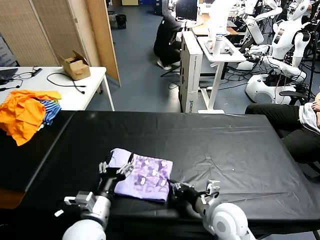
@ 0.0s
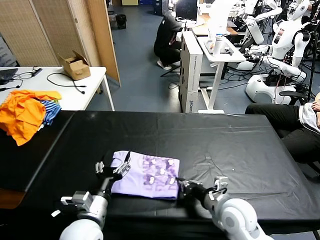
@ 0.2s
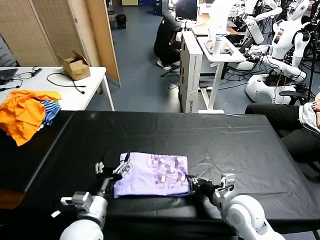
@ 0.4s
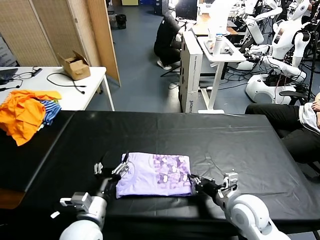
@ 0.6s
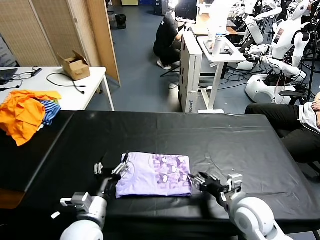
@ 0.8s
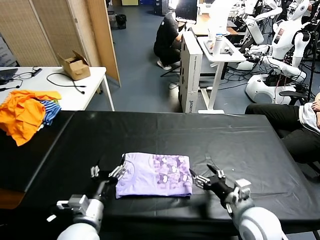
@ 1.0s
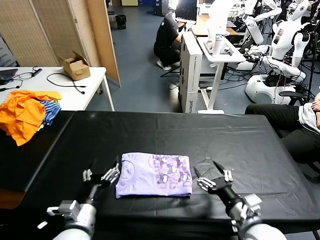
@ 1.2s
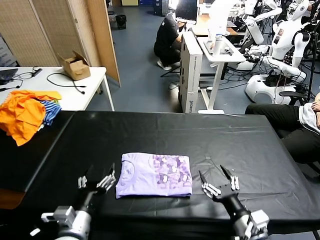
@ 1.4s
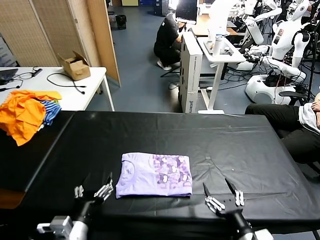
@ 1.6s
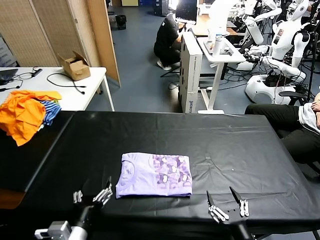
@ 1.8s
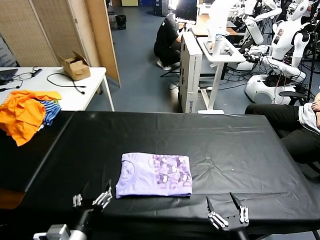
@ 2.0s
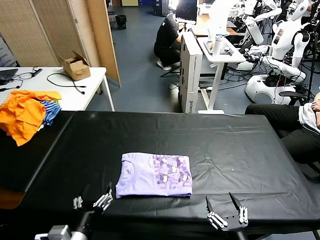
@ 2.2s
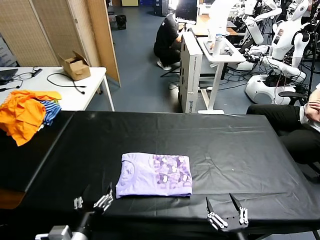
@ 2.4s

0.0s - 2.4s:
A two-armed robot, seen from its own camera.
Task of the whole recording: fold and organize the clothes.
0.0s - 1.2s: The right gripper heads to the right and backward, covering some 10 cm, and opens up.
1.2s - 2.4s: The left gripper heads backward, covering roughly 5 cm, while the right gripper shifts about 15 cm backward.

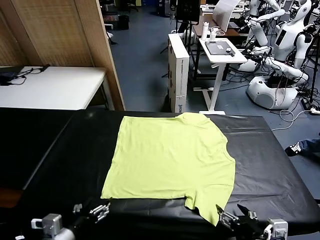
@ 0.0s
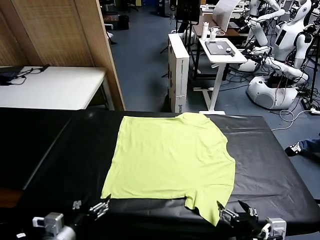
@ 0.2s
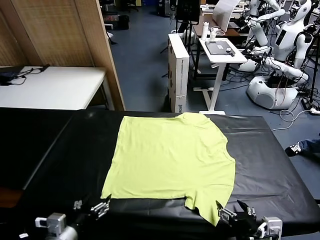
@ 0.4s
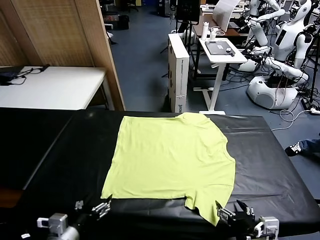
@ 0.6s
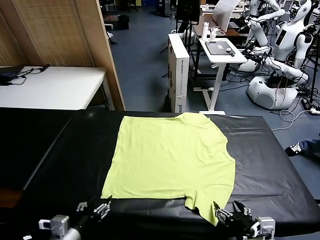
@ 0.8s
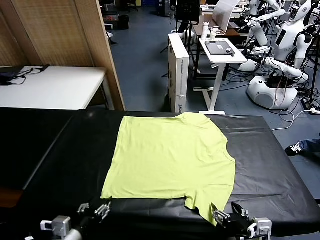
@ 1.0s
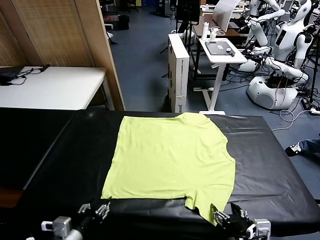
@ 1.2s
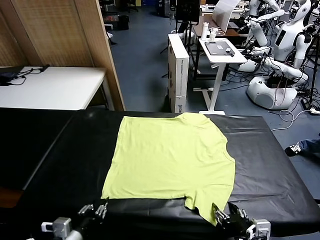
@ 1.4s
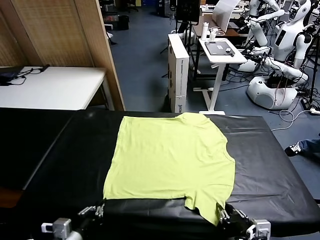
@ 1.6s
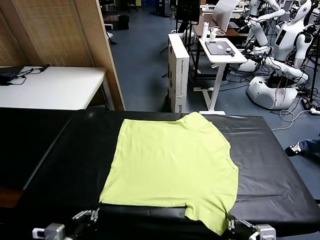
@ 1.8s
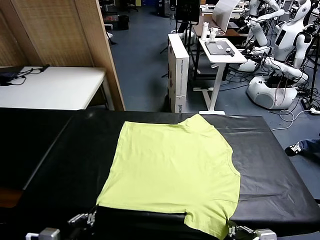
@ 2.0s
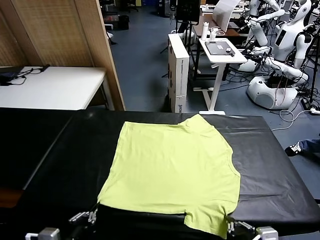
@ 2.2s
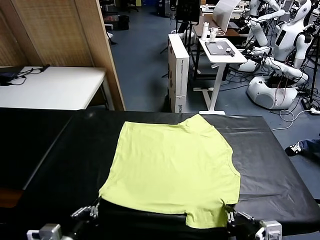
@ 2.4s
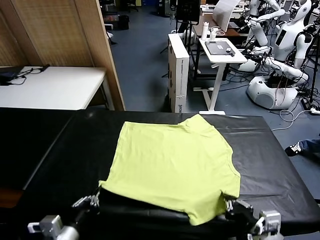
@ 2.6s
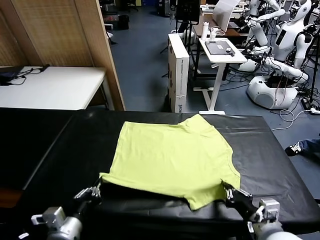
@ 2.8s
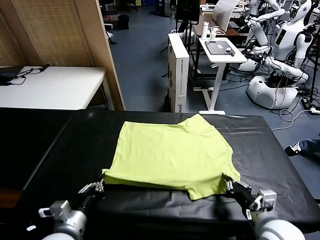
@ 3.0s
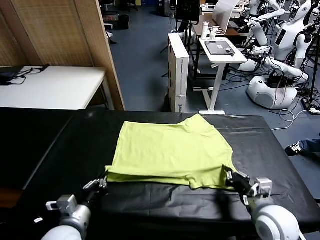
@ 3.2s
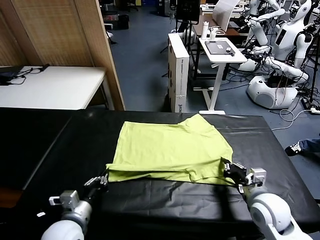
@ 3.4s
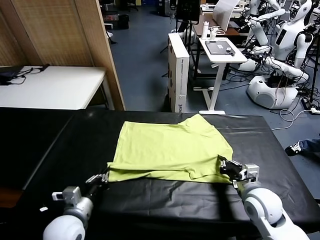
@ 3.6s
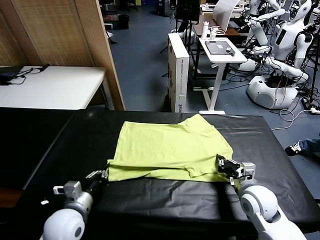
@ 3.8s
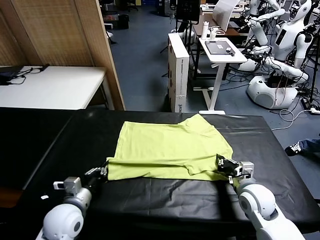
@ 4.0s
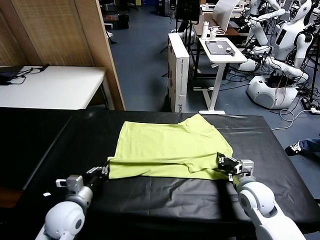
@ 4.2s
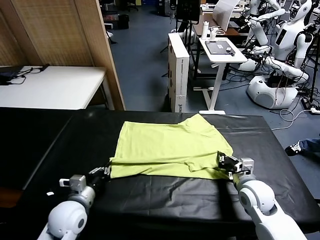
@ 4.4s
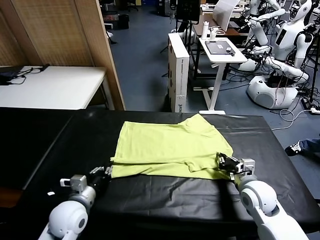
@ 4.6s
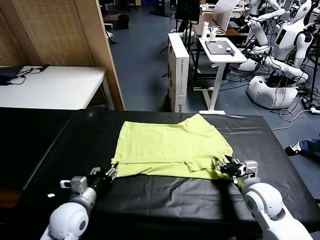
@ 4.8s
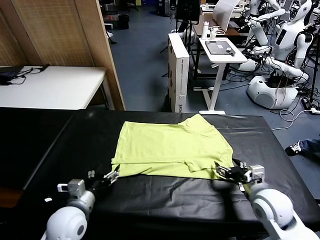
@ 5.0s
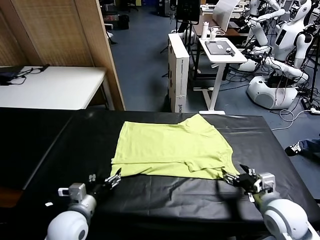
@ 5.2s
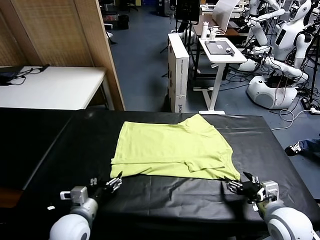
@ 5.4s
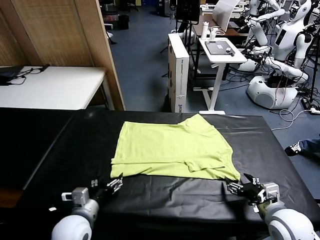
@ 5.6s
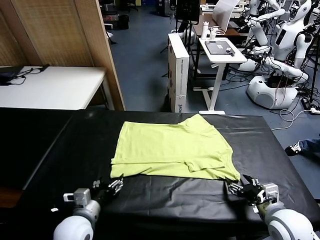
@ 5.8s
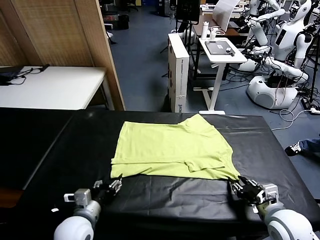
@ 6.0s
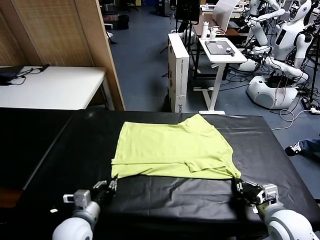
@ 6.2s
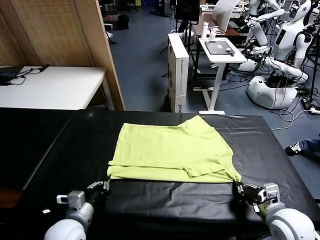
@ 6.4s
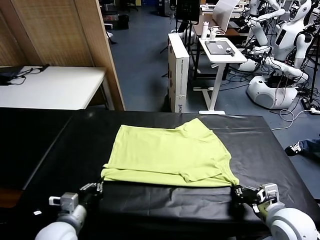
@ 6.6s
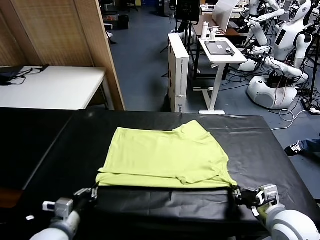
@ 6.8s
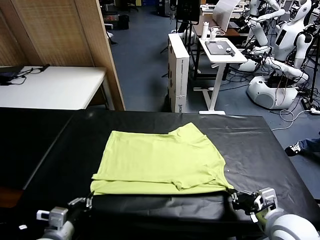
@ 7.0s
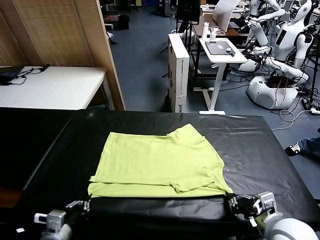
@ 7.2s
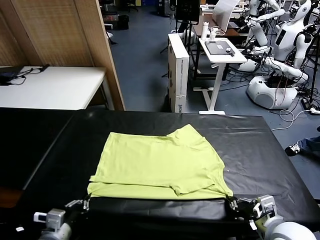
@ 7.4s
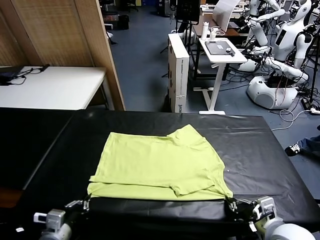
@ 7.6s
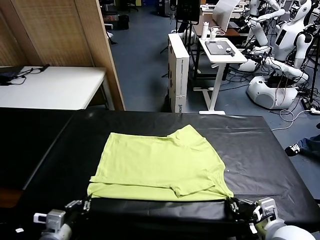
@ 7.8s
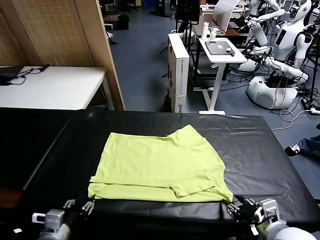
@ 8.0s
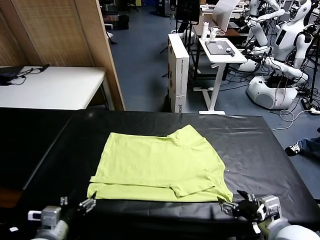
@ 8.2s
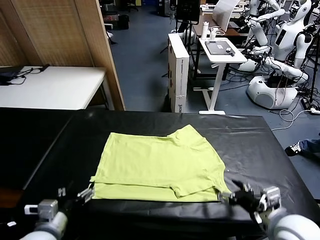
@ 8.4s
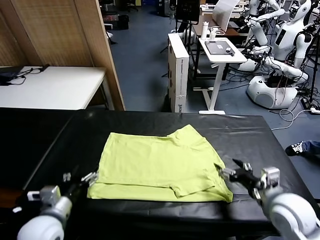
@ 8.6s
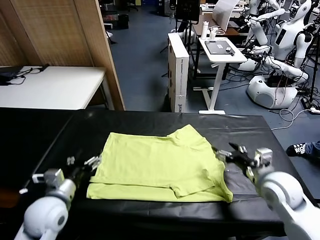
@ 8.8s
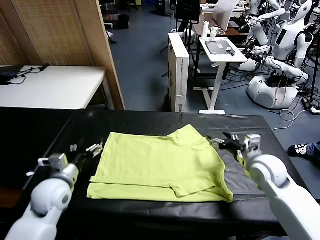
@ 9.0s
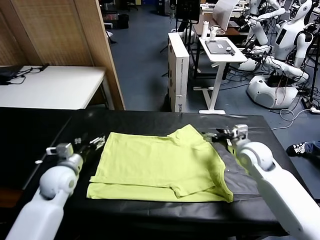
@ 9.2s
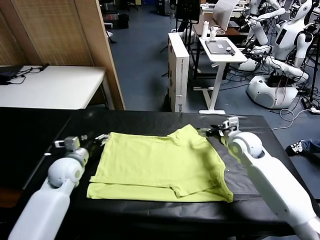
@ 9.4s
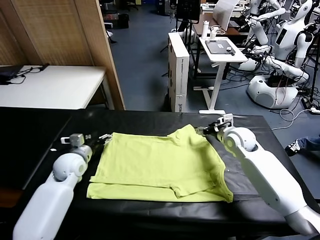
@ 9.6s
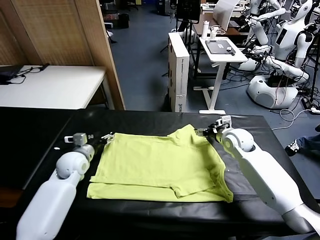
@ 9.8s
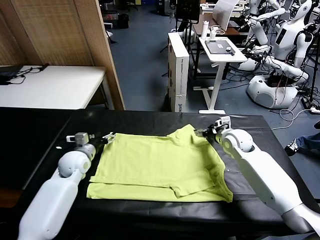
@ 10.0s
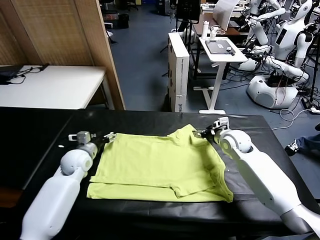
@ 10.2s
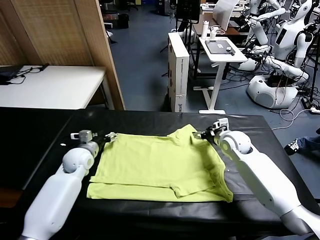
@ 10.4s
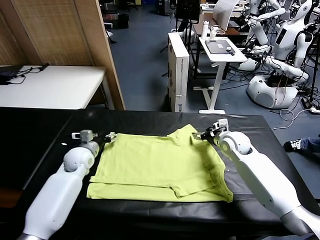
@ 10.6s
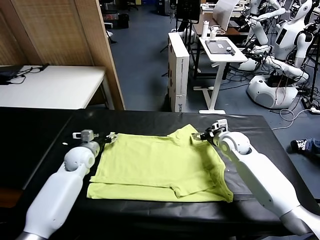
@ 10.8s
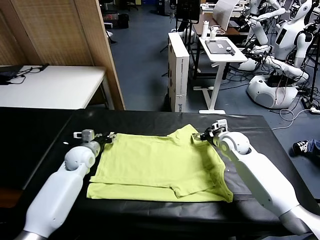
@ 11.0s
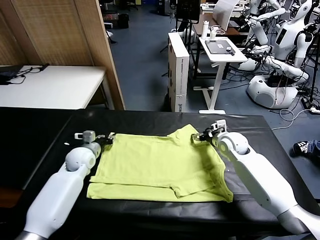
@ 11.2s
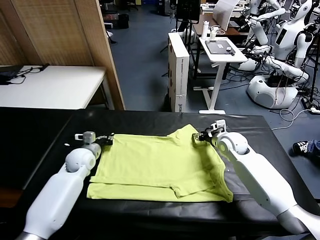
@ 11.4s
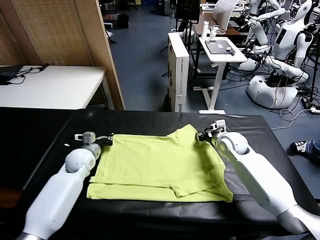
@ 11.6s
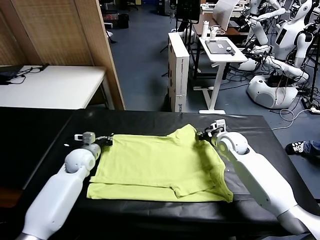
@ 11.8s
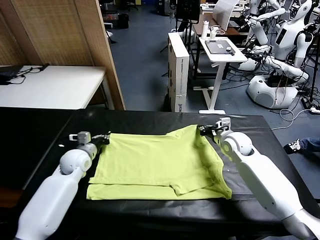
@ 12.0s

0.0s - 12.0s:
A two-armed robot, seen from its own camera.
Task of the whole recording: fold and organize the clothes.
Step, 0.0s - 1.6s: use both grippers simultaneously to clamp the lower edge of the clothing fabric.
Step, 1.8s - 4.8s: use both grippers to drag the lower edge of the fabric forward and fold it over the upper edge.
Step, 5.0s - 8.2s: Drag the clothes downward with both gripper.
Step, 8.4s - 11.6s: use both grippers simultaneously to clamp the upper edge of the clothing fabric.
1.6s - 3.0s: The right gripper goes about 10 cm forward. The left gripper moves some 5 cm.
3.0s - 4.4s: Both grippers move forward, approximately 10 cm.
4.4s - 6.0s: The right gripper travels backward by some 10 cm, and opens and closes again, while the left gripper opens up.
6.0s - 7.6s: The right gripper ends up some 5 cm from where it was. Meanwhile the left gripper goes about 10 cm backward and to the left, and closes up.
7.6s - 9.0s: The grippers both shift forward by approximately 20 cm. The left gripper opens. Meanwhile the right gripper opens.
9.0s - 10.4s: The grippers both shift forward by about 10 cm.
10.4s - 12.0s: The left gripper closes its fingers, while the right gripper closes.

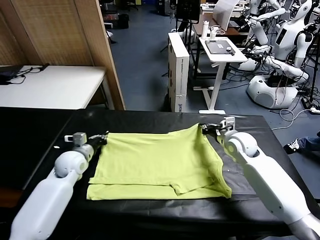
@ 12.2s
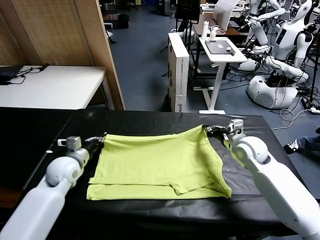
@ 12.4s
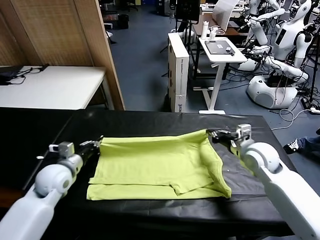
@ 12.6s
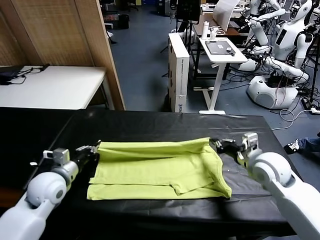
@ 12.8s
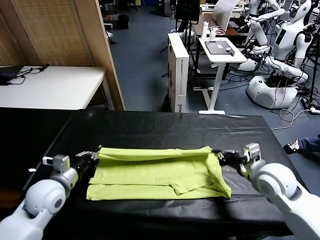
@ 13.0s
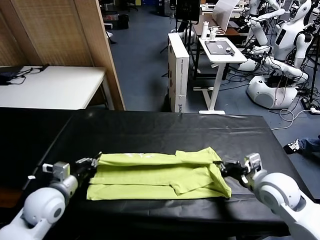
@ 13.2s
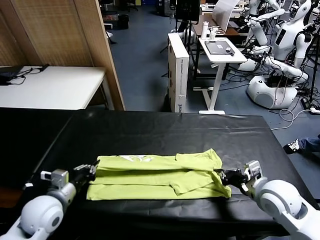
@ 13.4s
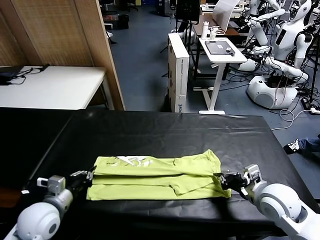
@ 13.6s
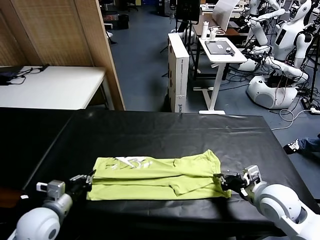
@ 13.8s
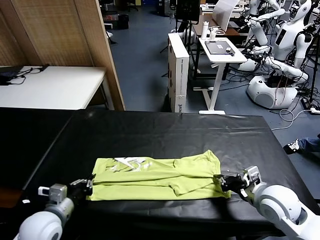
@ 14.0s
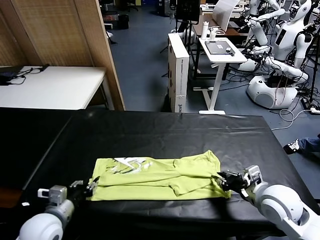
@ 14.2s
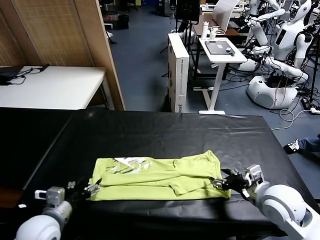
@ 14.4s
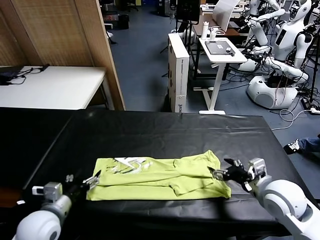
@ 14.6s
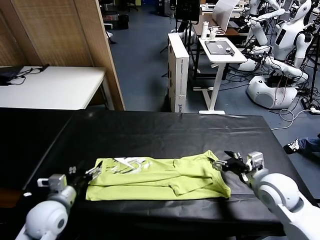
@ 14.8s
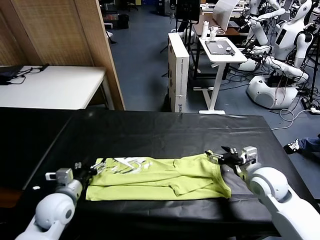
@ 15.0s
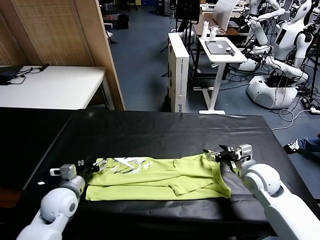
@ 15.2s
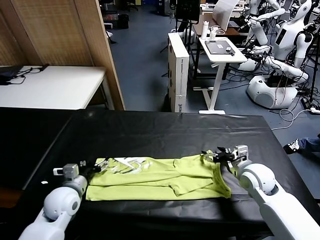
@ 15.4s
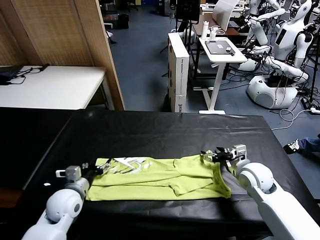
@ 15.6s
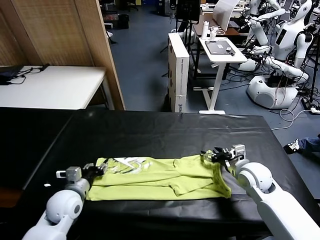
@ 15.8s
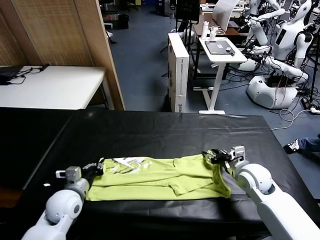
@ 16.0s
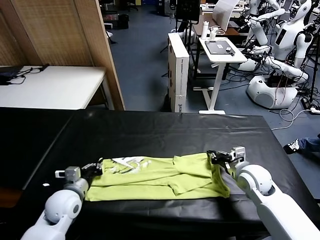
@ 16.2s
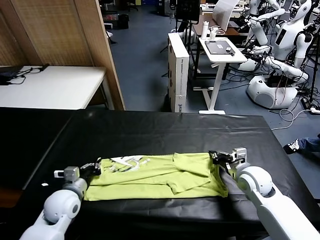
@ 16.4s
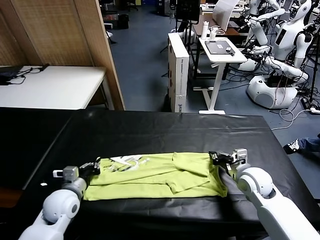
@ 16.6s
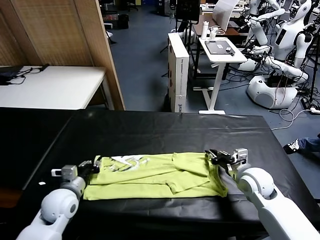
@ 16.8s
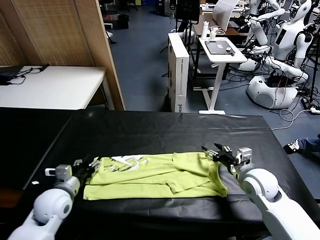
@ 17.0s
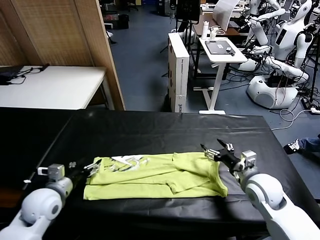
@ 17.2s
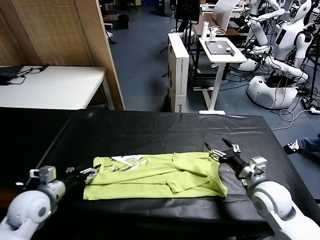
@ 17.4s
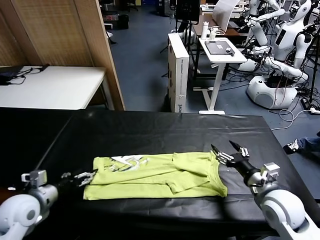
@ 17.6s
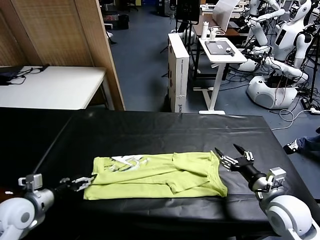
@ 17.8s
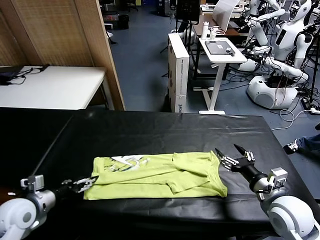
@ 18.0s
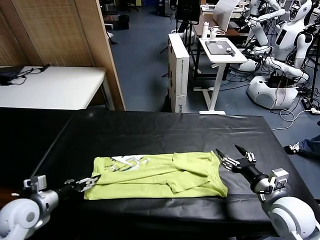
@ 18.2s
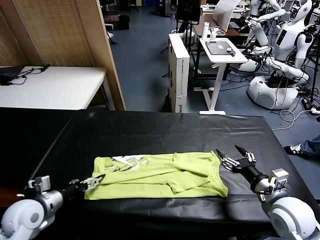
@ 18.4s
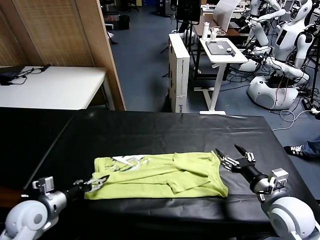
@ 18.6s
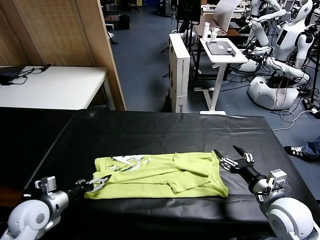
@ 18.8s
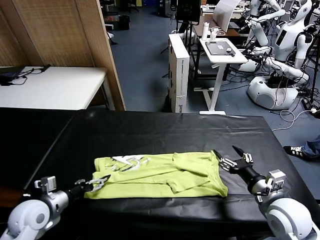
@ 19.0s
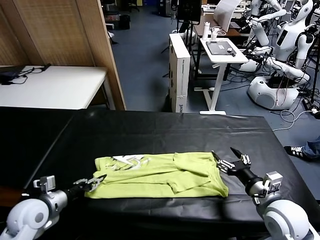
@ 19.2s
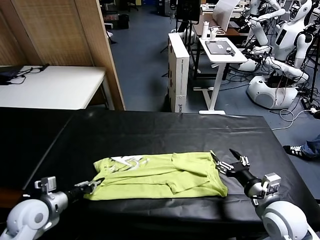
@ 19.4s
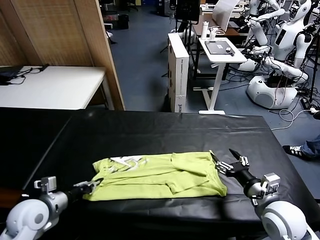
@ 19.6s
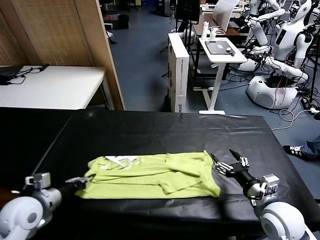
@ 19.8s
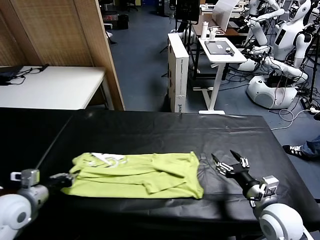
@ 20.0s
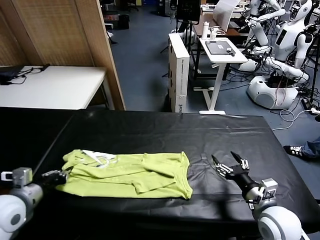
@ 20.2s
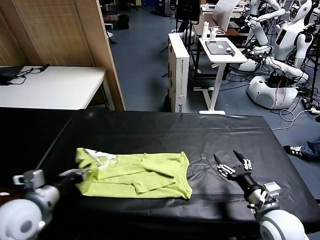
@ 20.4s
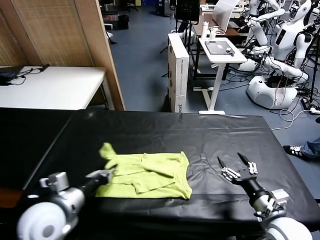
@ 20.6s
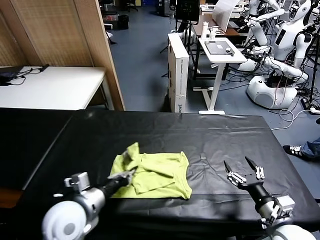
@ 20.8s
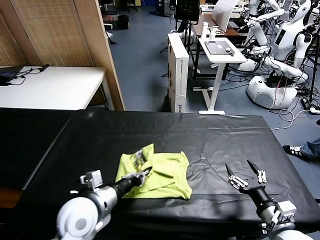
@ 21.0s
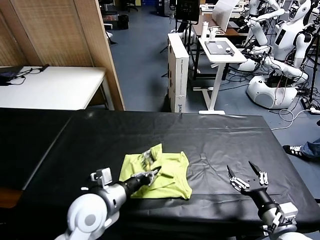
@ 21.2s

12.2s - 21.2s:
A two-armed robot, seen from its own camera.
Task of the whole recording: fold and organize the clothes.
Step, 12.2s - 14.2s: use both grippers to drag the upper edge of the fabric backward and fold it over the lower edge.
Step, 14.4s - 19.4s: use the left gripper to clamp the left edge of the fabric.
12.2s - 13.8s: Both grippers move backward, approximately 20 cm.
13.8s - 15.2s: Both grippers travel together forward, about 5 cm. The left gripper opens. Meanwhile the right gripper opens up.
15.2s - 16.6s: The right gripper closes up; the left gripper closes.
16.6s - 18.2s: The right gripper goes some 15 cm backward and upward, and opens up, while the left gripper goes roughly 10 cm to the left, and opens its fingers.
18.2s - 19.8s: The left gripper closes up.
19.8s - 21.2s: The right gripper heads backward, covering approximately 5 cm. Meanwhile the left gripper heads to the right, covering roughly 15 cm.
